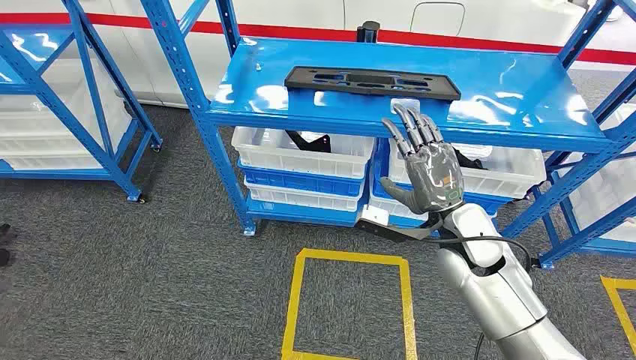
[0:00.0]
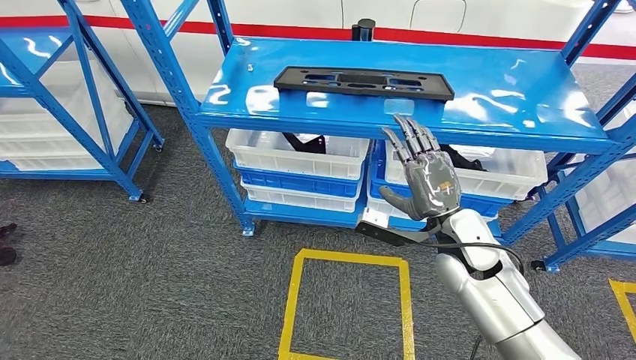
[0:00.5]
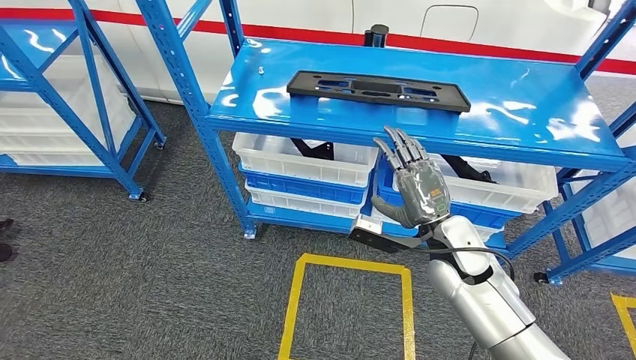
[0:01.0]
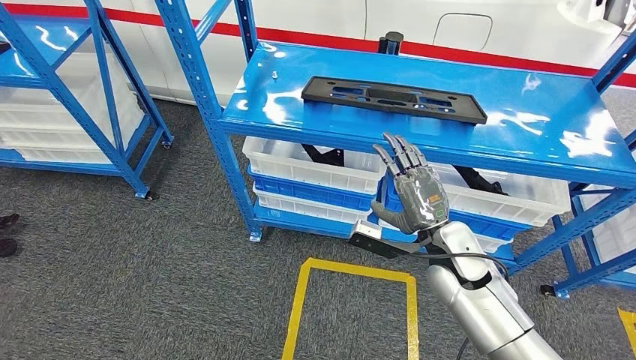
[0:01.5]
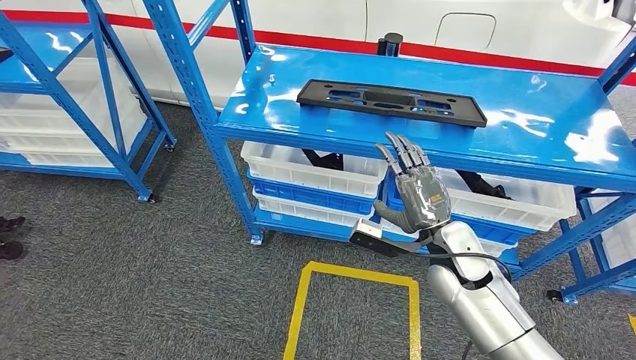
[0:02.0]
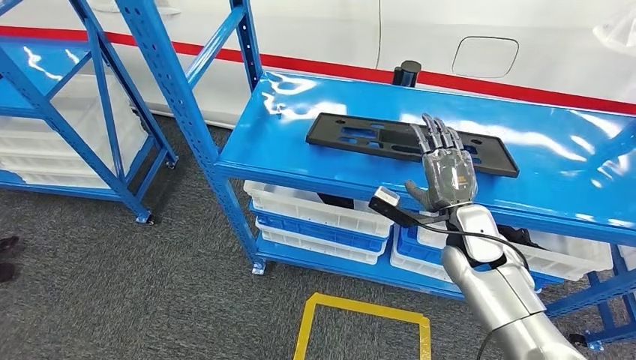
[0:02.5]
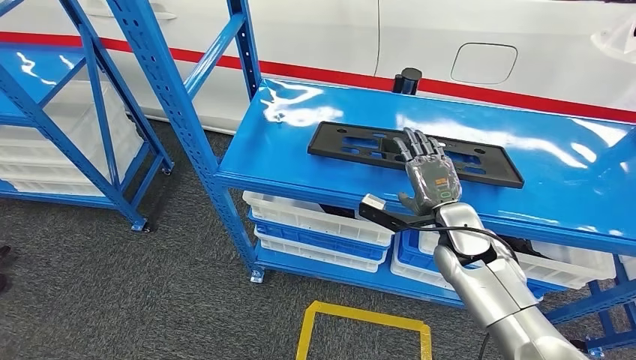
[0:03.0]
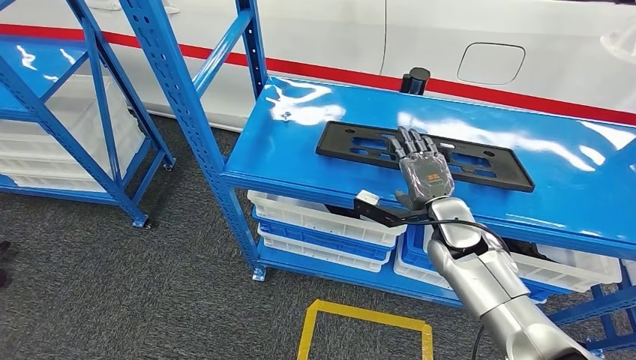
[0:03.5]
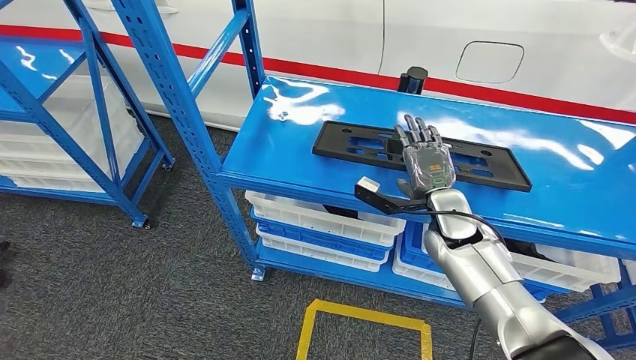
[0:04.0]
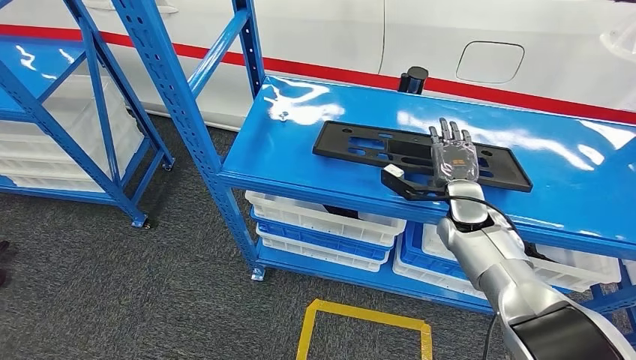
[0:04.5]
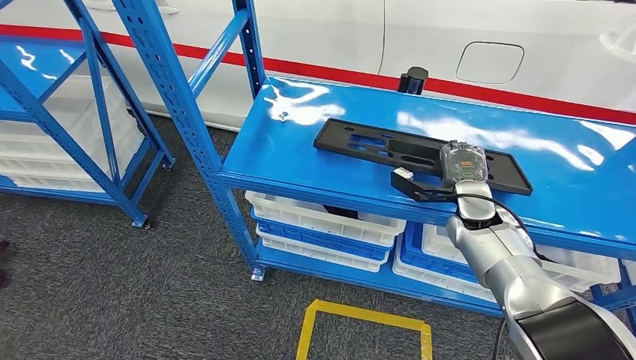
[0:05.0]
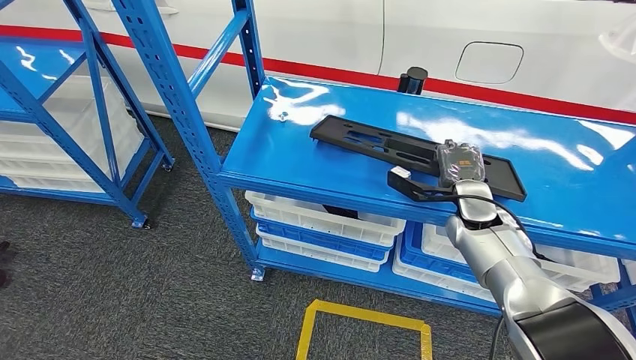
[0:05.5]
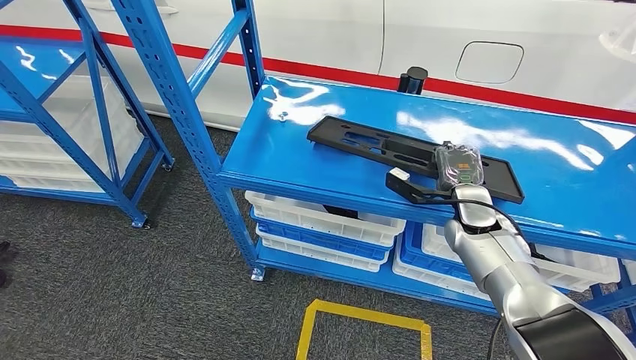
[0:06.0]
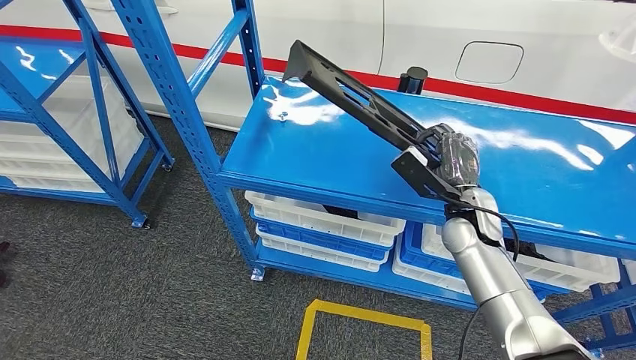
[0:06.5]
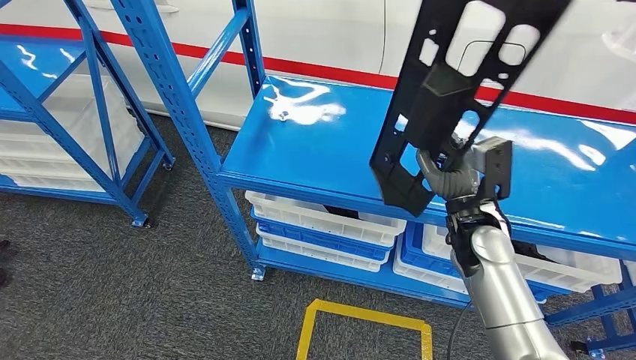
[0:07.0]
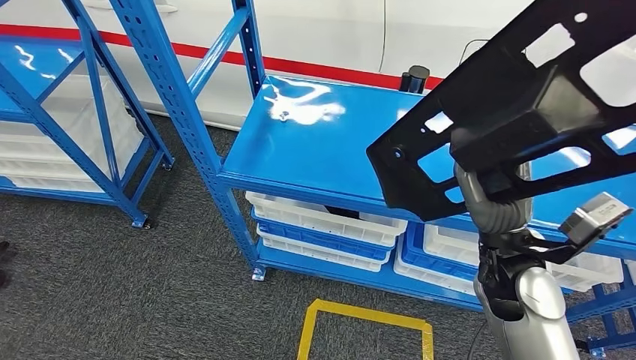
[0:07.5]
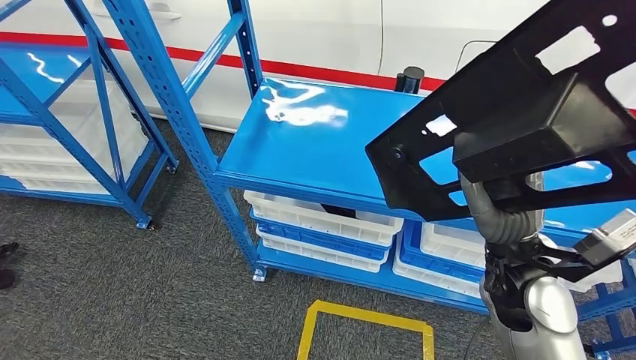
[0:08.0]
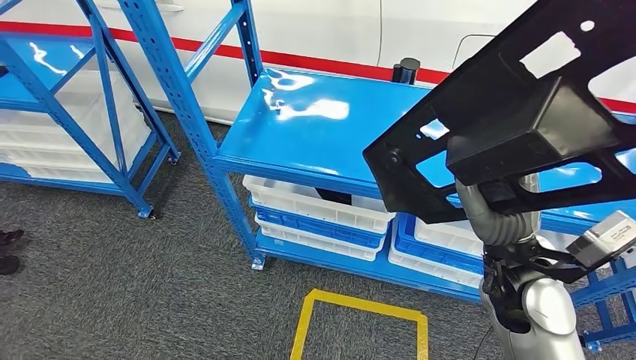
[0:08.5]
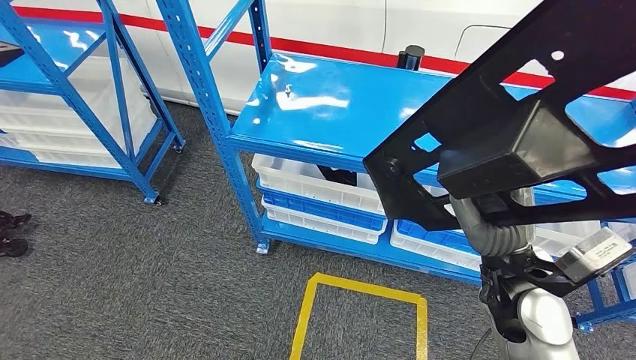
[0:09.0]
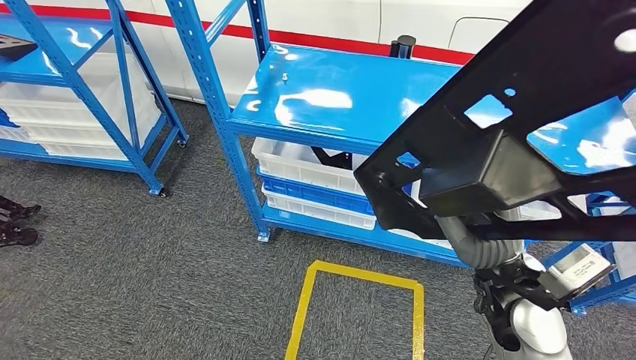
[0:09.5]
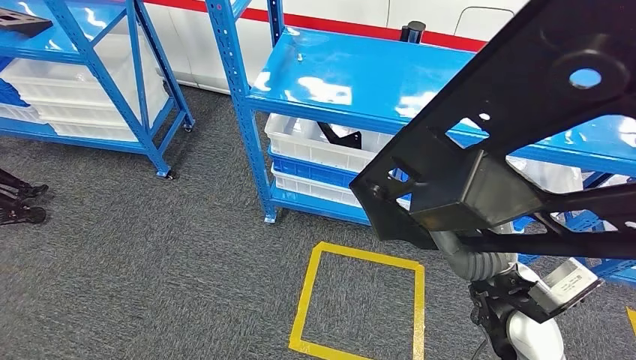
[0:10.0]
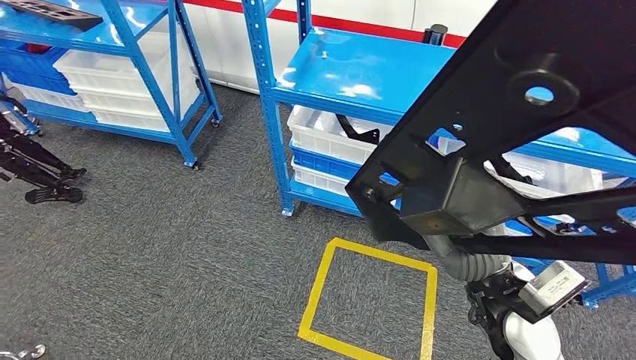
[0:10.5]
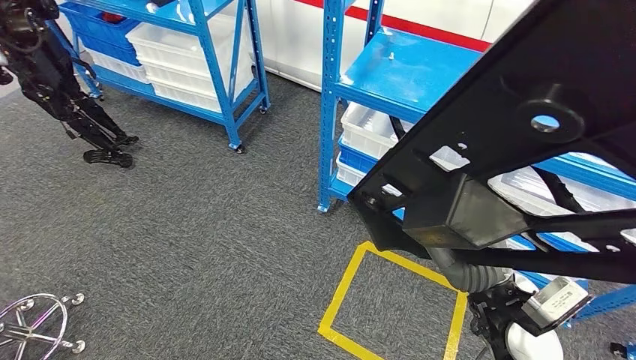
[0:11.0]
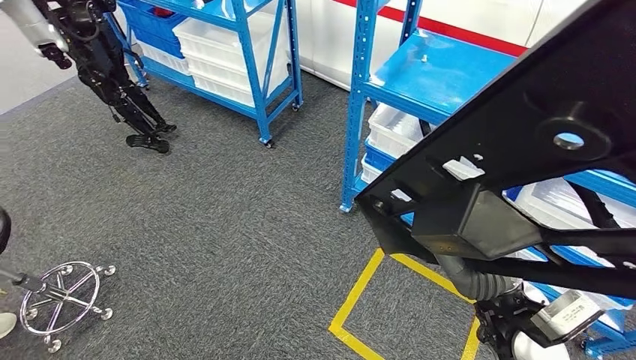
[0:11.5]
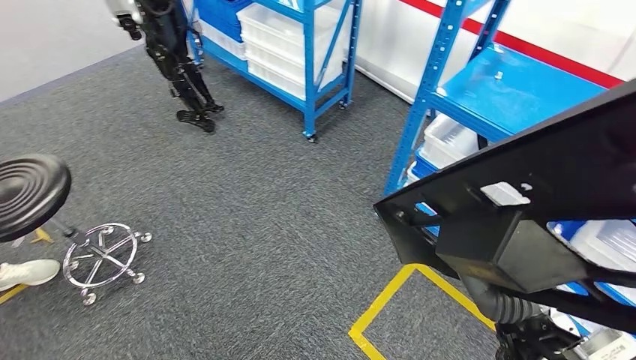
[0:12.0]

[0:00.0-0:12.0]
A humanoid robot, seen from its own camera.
Step, 0:00.0 to 0:10.5: Pick up the large material from the shelf.
0:04.0 to 0:06.0: The right hand shifts approximately 5 cm to the right.

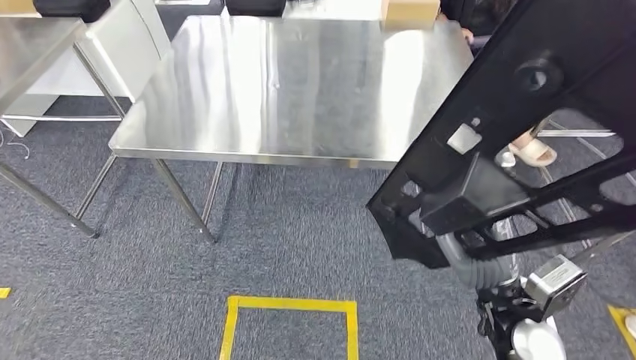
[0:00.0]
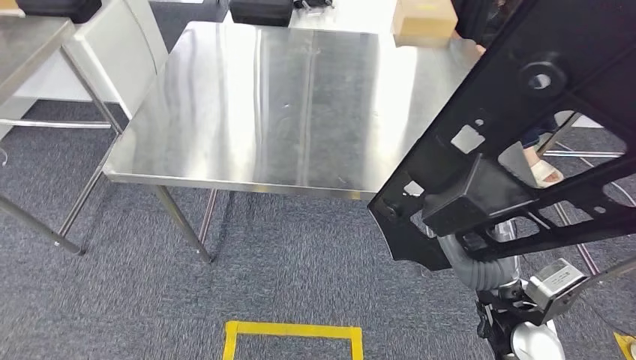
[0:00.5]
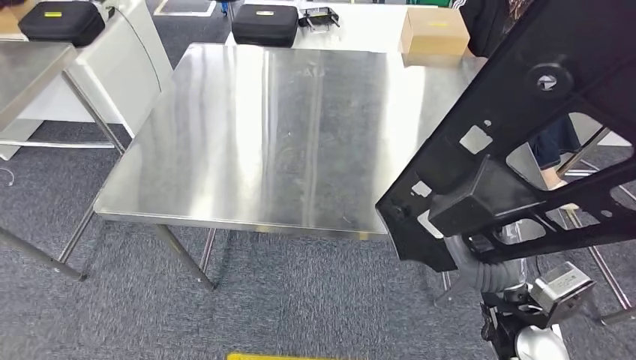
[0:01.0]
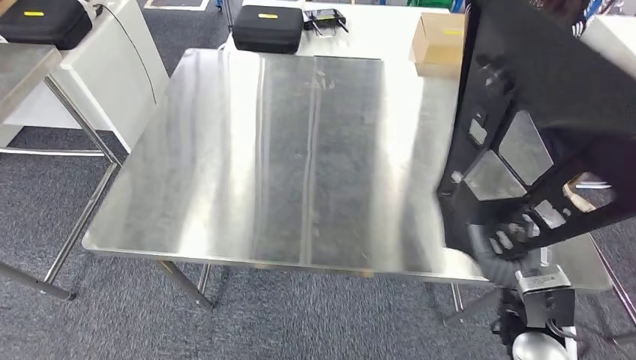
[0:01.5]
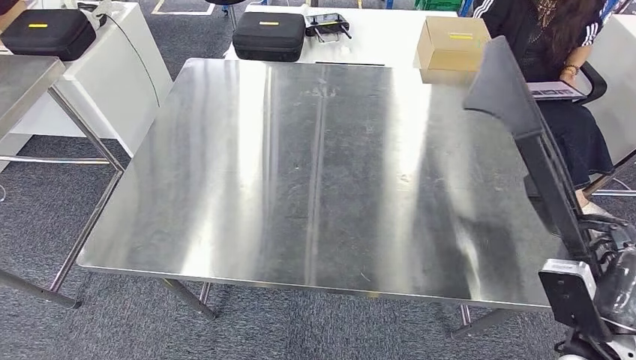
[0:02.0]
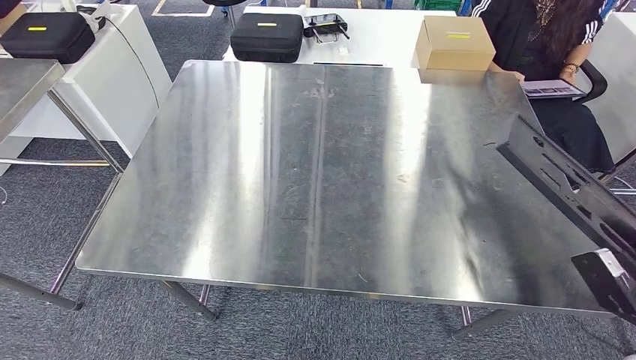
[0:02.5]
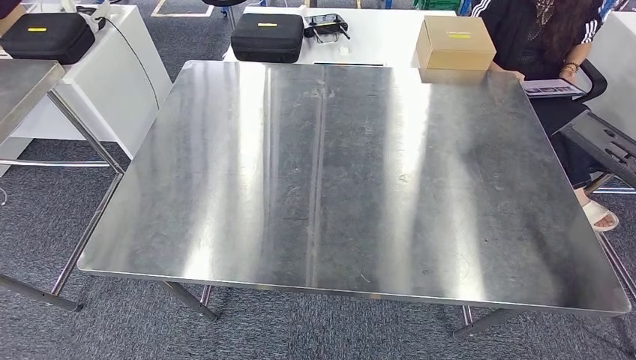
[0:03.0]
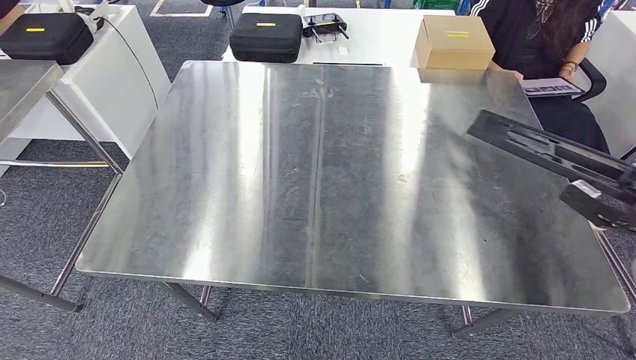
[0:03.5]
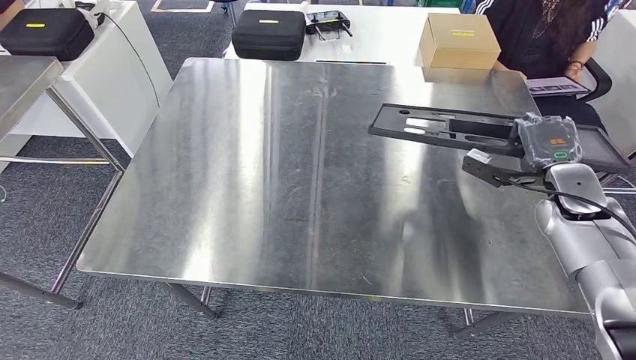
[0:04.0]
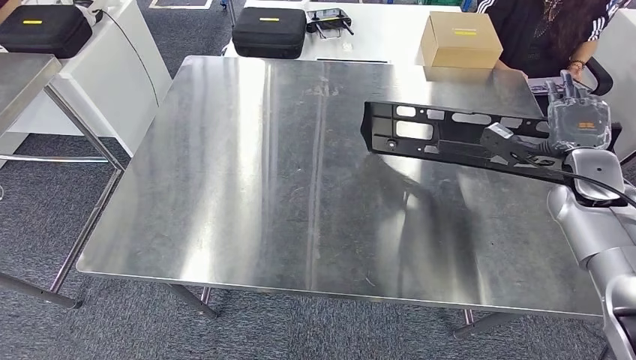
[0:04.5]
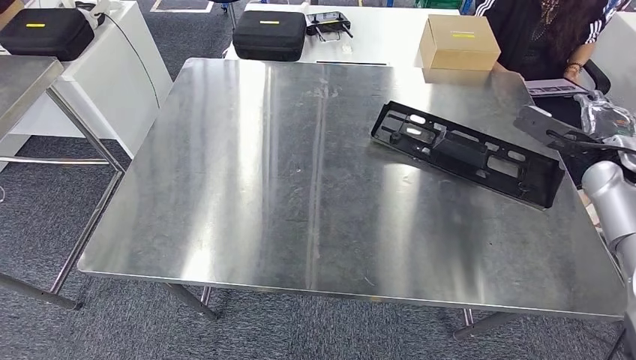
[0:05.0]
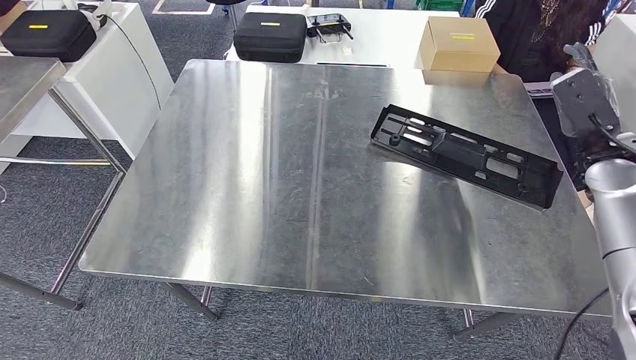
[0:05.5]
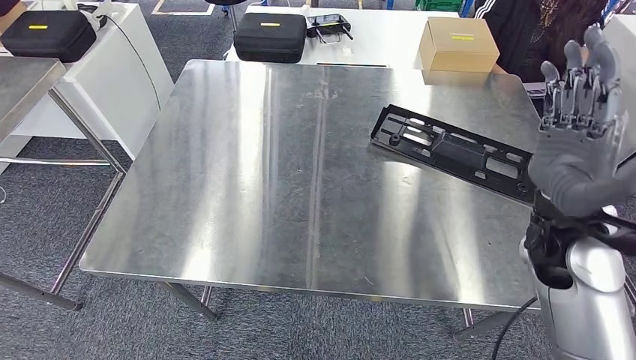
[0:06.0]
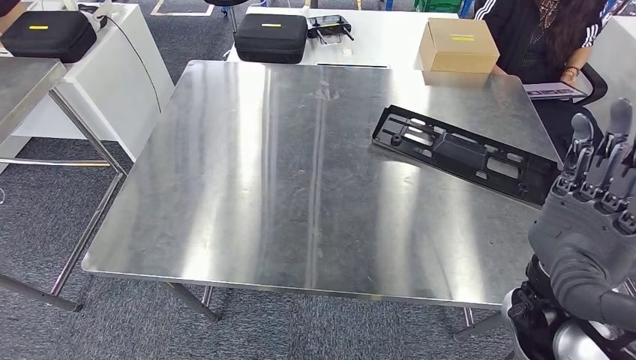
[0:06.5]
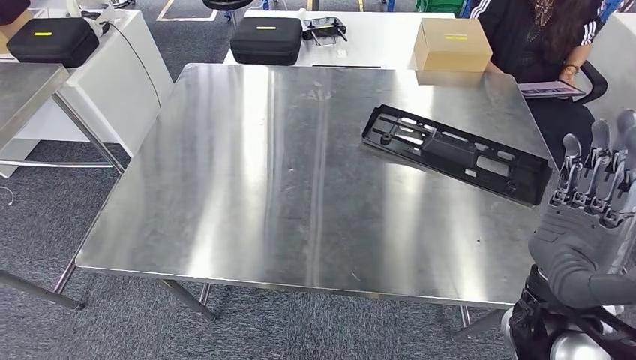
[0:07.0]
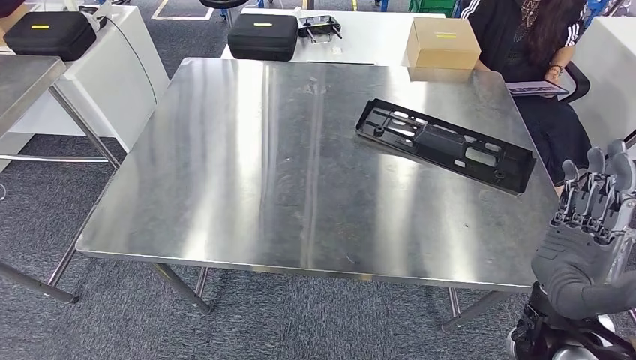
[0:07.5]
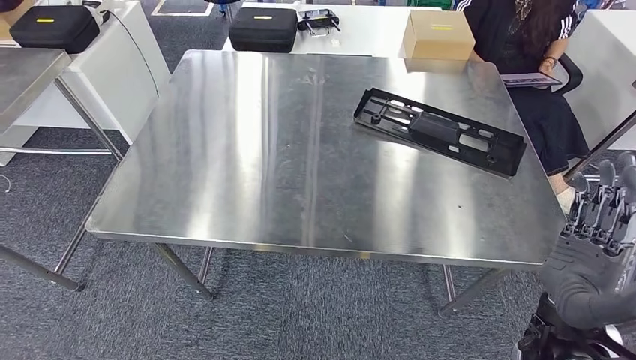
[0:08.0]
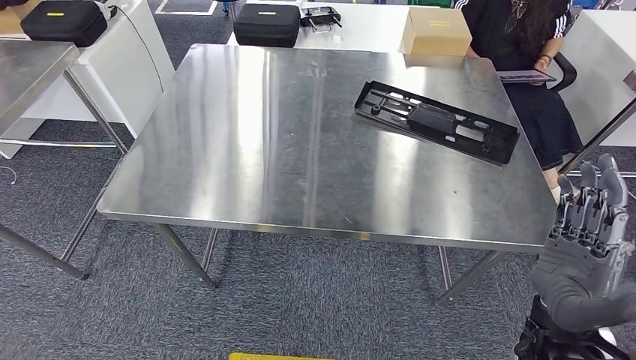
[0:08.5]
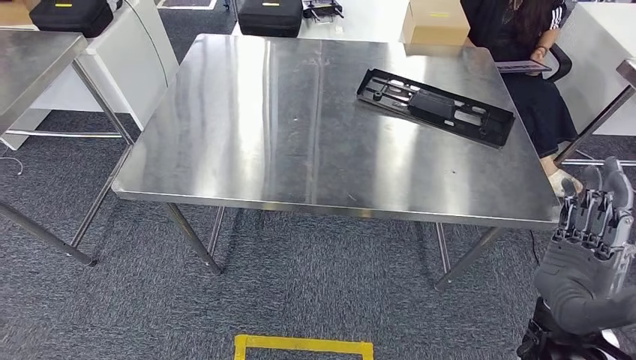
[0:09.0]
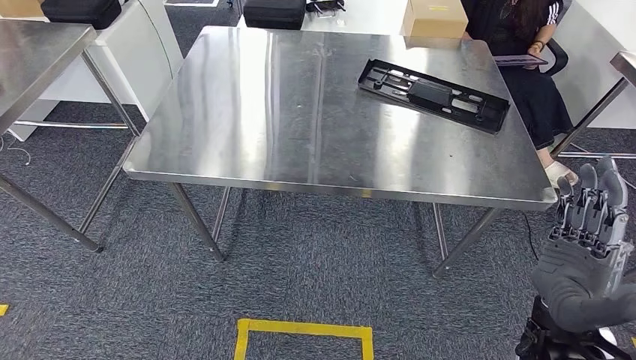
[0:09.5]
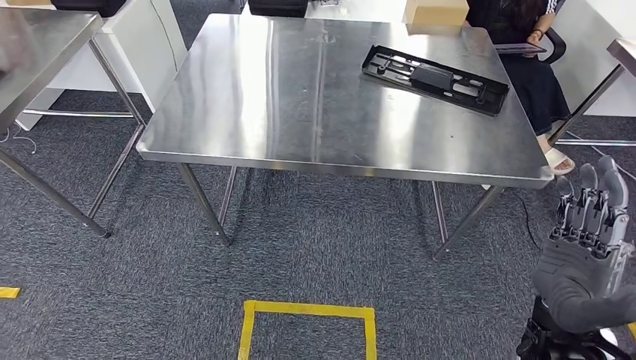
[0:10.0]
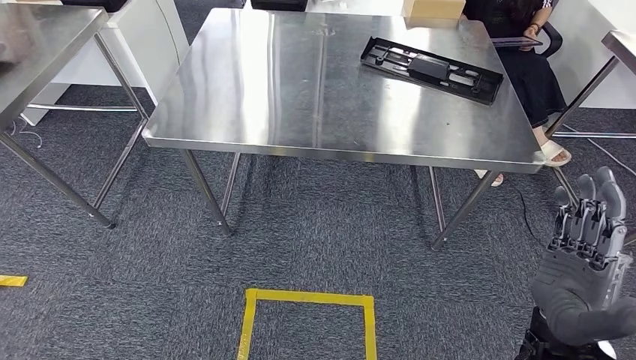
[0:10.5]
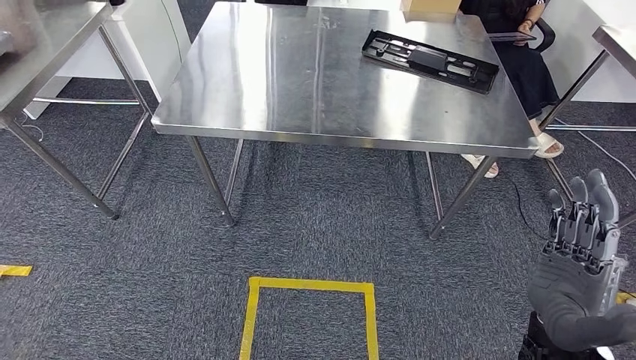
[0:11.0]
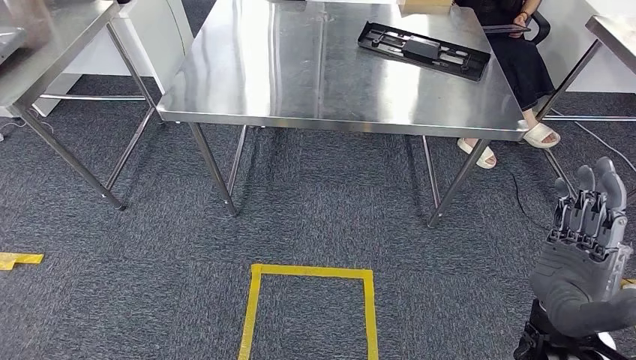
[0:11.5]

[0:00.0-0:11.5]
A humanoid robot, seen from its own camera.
Step, 0:01.0 to 0:11.0: Insert the large material into the corresponding slot on the workbench.
